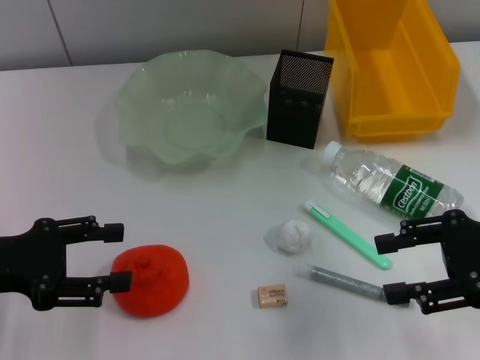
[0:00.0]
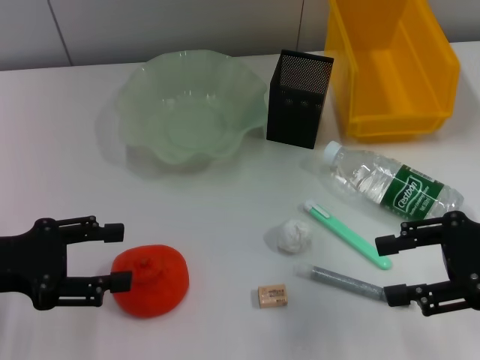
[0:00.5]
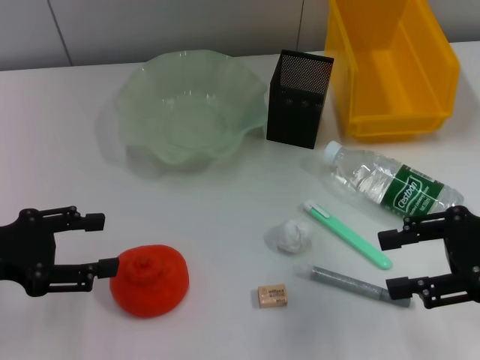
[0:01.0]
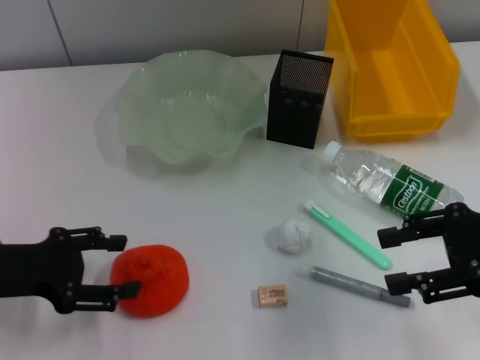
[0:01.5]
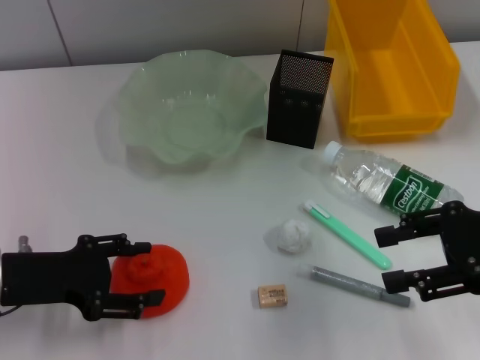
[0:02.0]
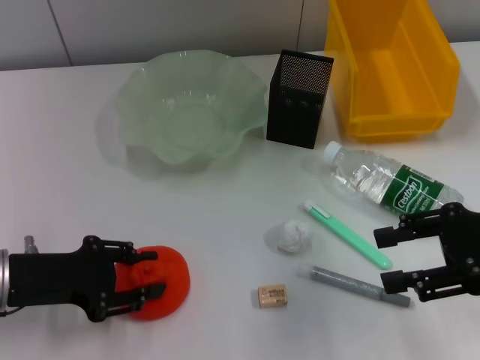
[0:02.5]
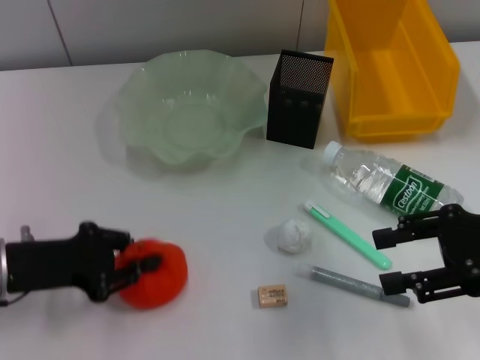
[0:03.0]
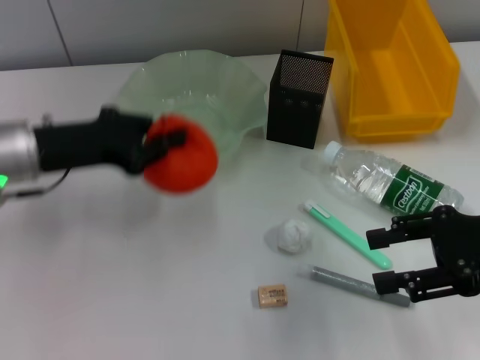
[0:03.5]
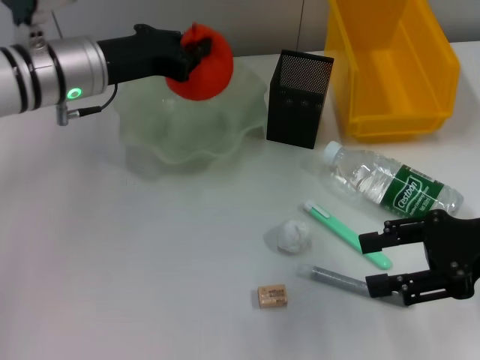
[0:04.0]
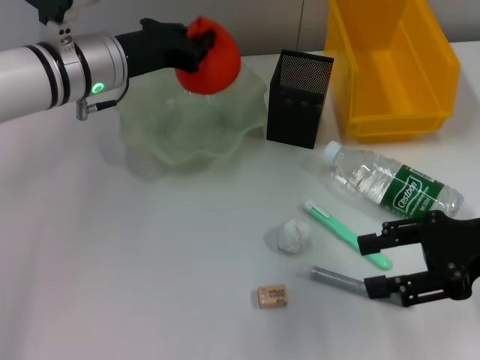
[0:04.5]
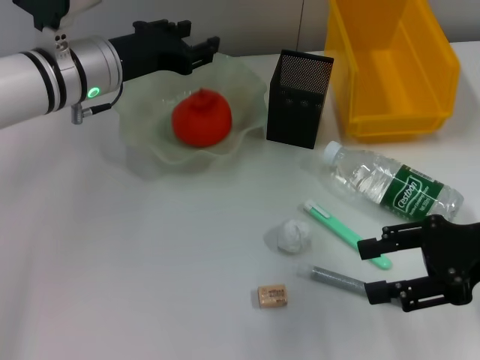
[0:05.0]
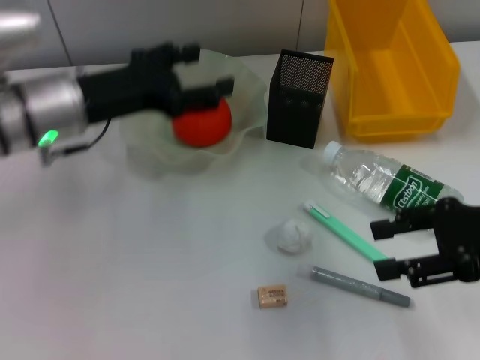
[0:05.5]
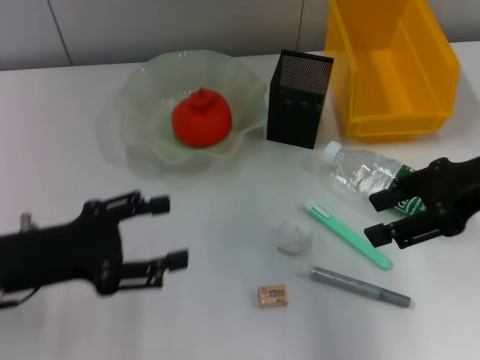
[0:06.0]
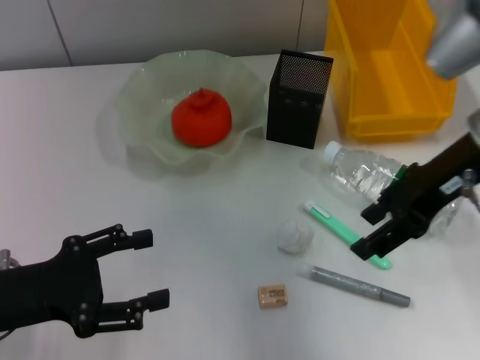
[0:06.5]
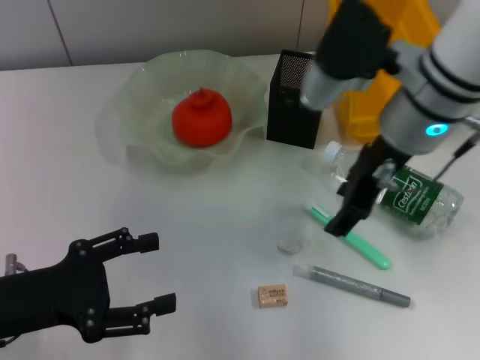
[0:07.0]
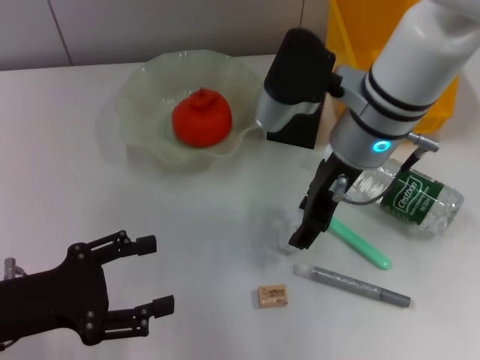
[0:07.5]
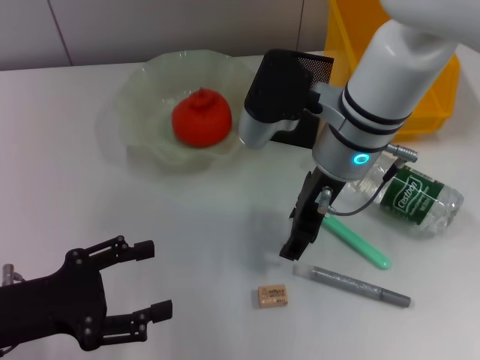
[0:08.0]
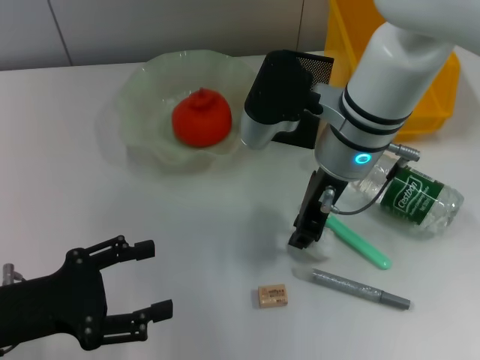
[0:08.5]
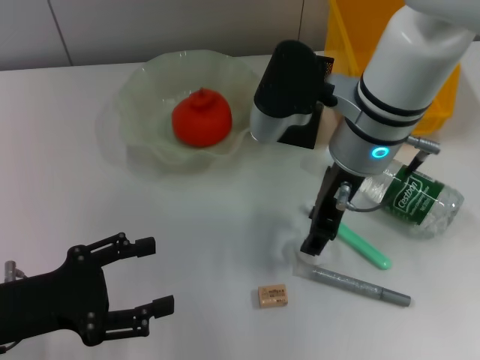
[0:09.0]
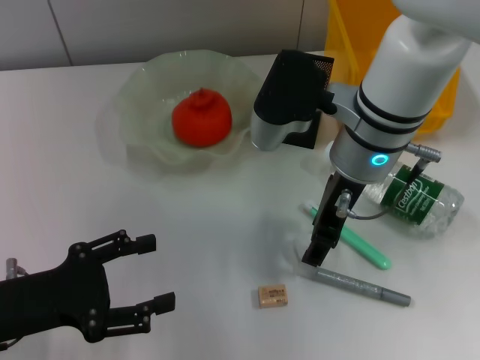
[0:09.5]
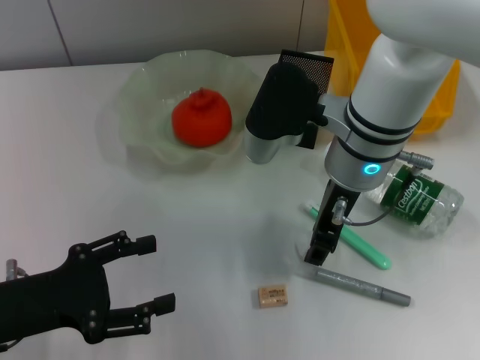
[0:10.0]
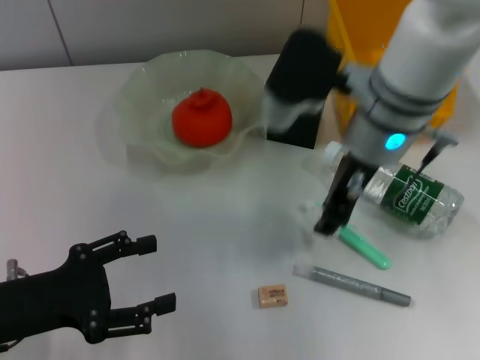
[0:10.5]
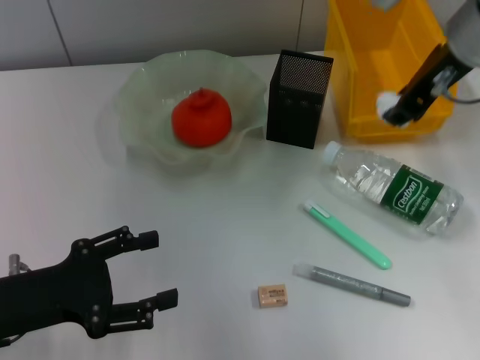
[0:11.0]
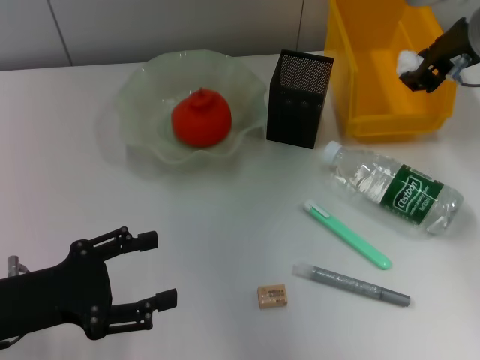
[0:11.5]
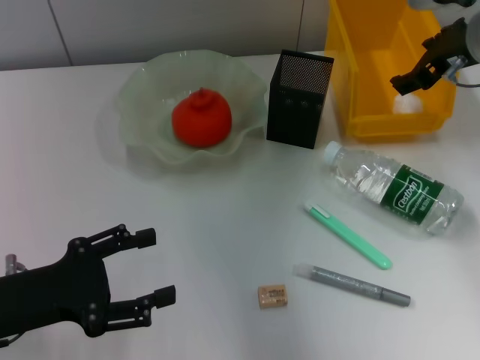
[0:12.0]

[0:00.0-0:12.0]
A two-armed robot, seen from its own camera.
Step, 0.0 to 2.5 s: Grab the orange with the left hand.
Step, 3.0 to 4.5 s: Place the orange into the fruit bowl with the left hand.
Step, 5.0 to 10.0 s: Grab the paper ball with the right hand.
Step, 10.5 to 11.5 s: Place the paper ball into the trash can with the right hand.
0.0 to 2.0 s: There are only small adjustments of the grippers.
2.0 to 4.0 s: The left gripper goes approximately 20 cm forward, to the right and upward, and closes its fingers.
4.0 to 6.0 s: The left gripper heads backward and to the left, covering some 20 cm, and opens. The right gripper shifts roughly 5 cm upward.
6.0 to 8.0 s: The right gripper is displaced to the left and forward by some 20 cm.
8.0 to 10.0 s: The right gripper closes, then opens again.
10.0 to 12.0 s: The right gripper is displaced to the right by approximately 15 cm, and closes and opens again.

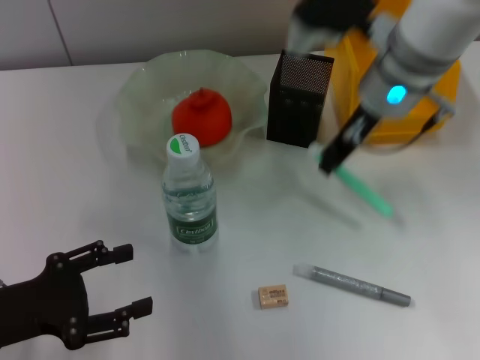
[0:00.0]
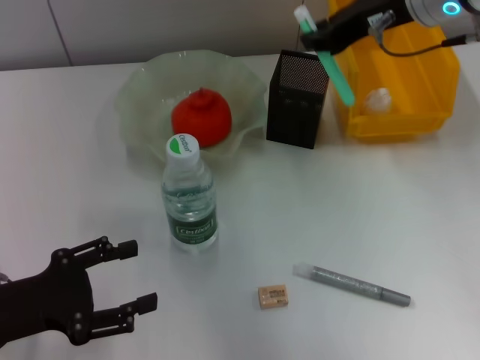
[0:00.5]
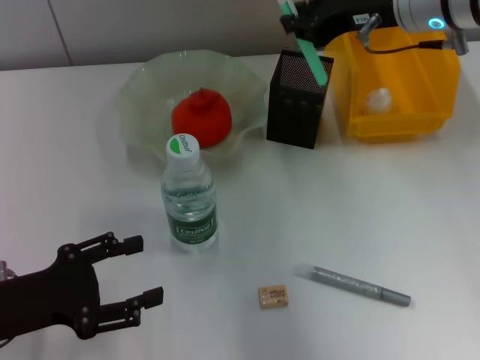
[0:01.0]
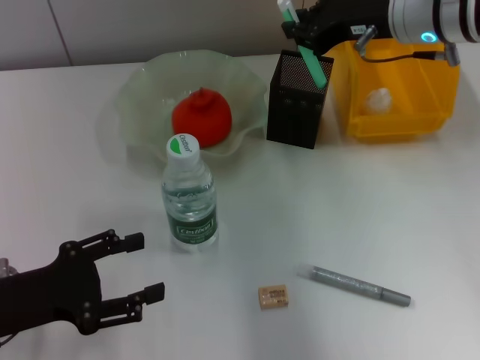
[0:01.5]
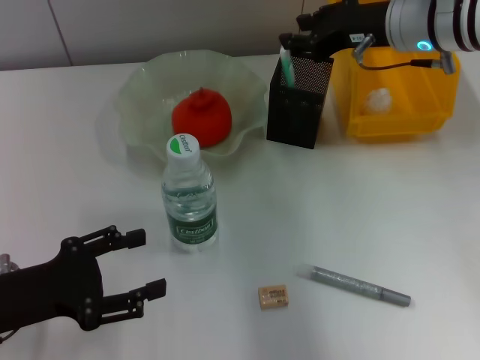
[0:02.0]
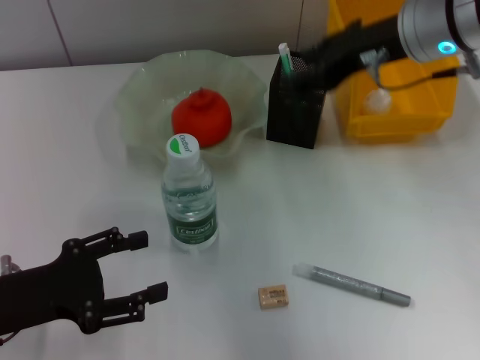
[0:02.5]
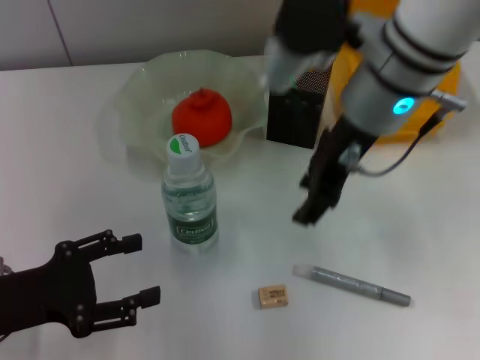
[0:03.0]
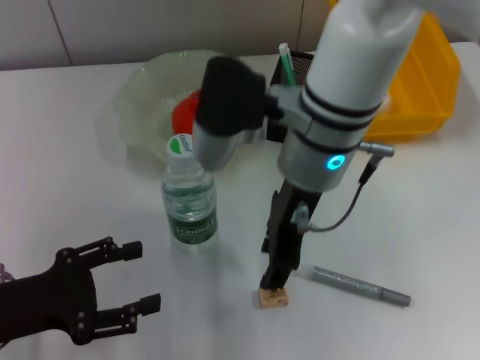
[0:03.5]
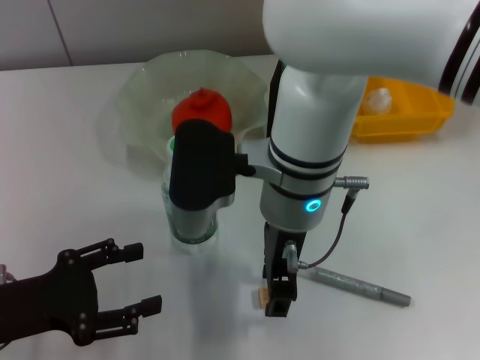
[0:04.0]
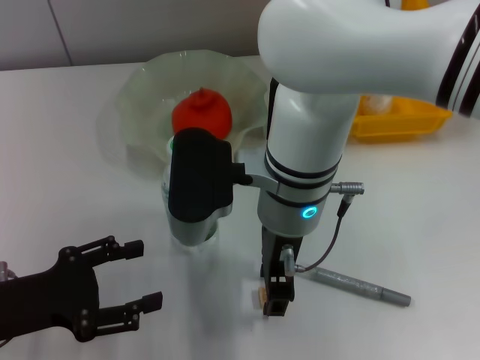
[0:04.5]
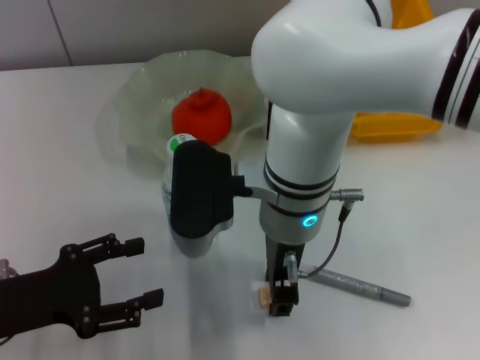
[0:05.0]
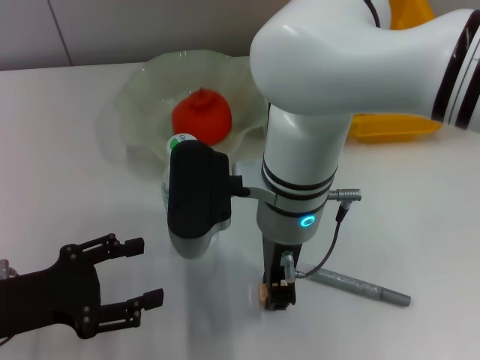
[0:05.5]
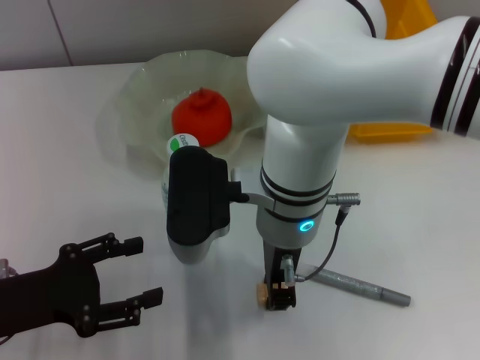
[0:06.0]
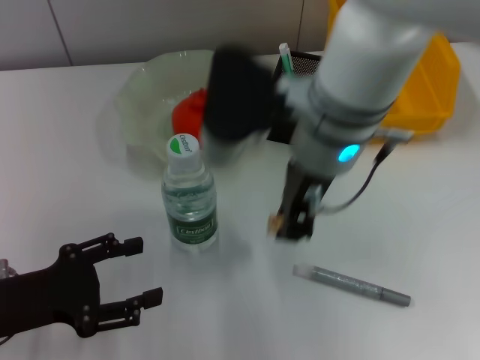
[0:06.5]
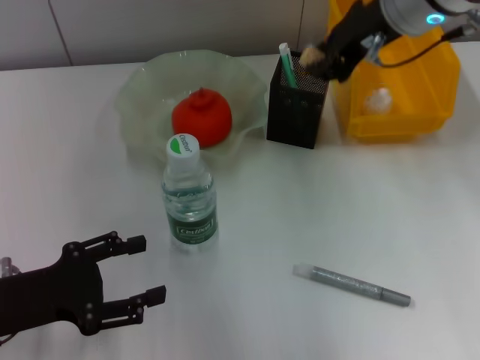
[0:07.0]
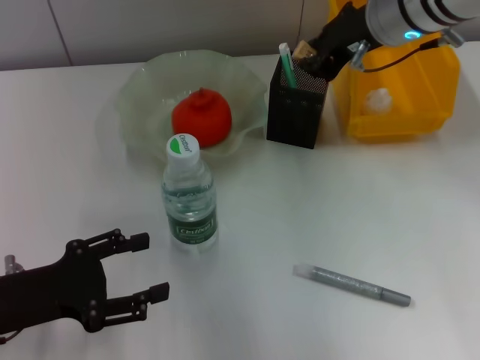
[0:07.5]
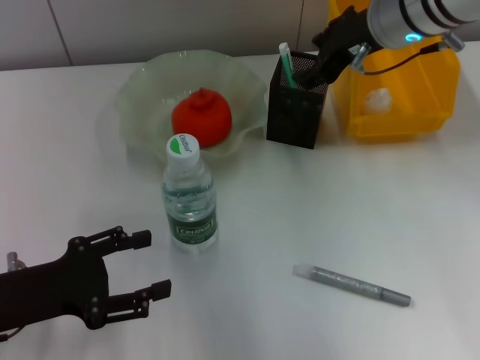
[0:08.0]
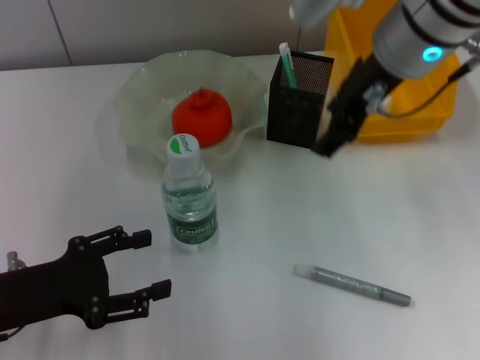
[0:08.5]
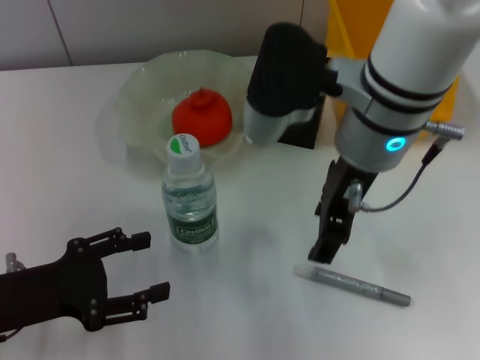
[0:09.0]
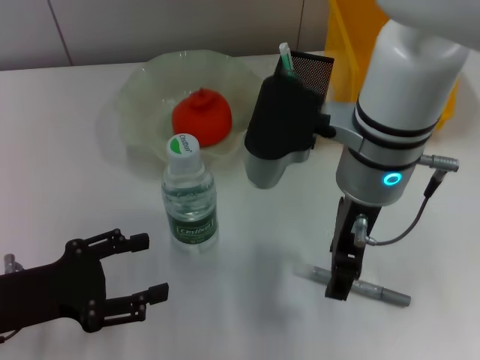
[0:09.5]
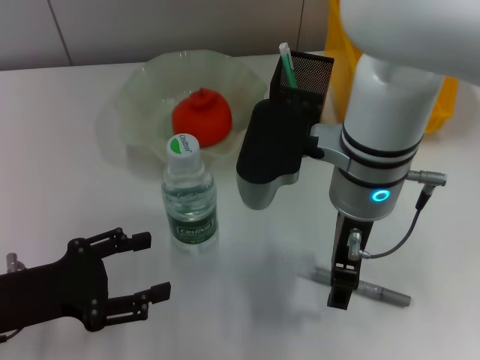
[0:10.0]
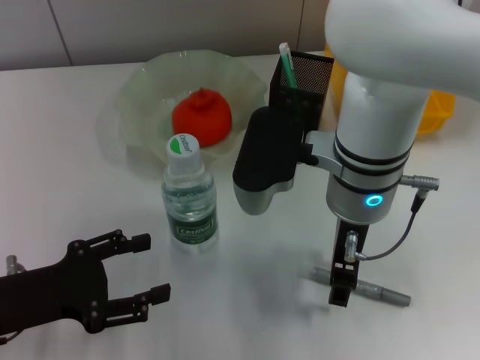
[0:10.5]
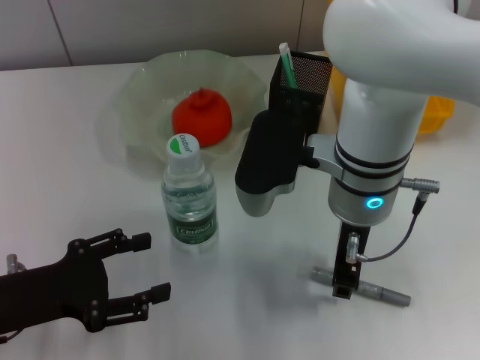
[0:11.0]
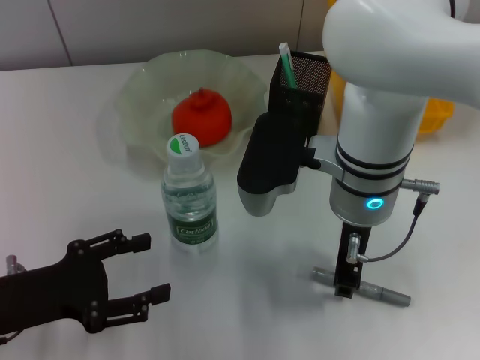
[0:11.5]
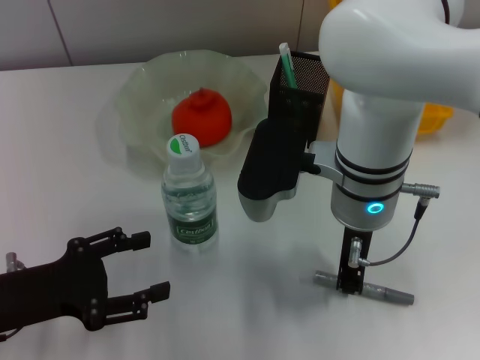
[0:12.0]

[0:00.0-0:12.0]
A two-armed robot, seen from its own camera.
Step, 0.0 to 2.0 s: Place the blue utility knife into the pen holder with the right hand.
Step, 2.5 to 6.0 s: Grab the eraser with the right hand.
Step, 6.5 to 7.5 s: Put the eraser into the pen holder with the right hand.
0.0 to 2.0 s: The right gripper shifts by some 5 cm.
2.0 to 4.0 s: The right gripper goes approximately 20 cm to the left and backward, and opens up.
4.0 to 6.0 s: The right gripper closes.
6.0 to 8.0 s: The right gripper goes roughly 20 cm to the right, forward and upward.
8.0 to 10.0 s: The right gripper heads backward, to the left and downward, covering some 15 cm, and opens up.
10.0 to 12.0 s: The right gripper closes its fingers.

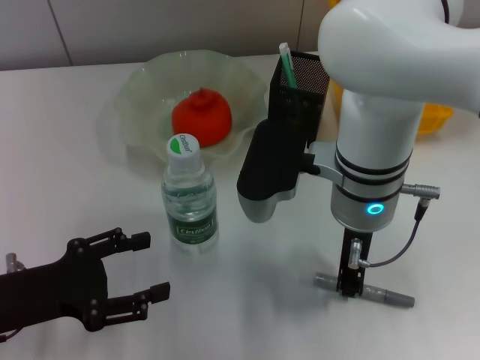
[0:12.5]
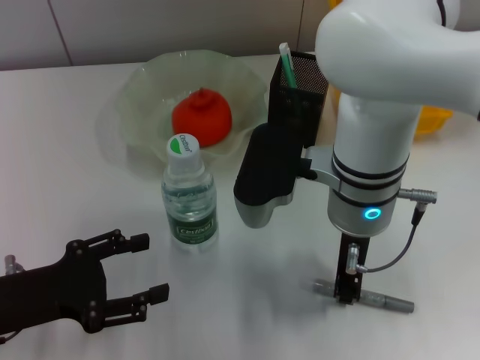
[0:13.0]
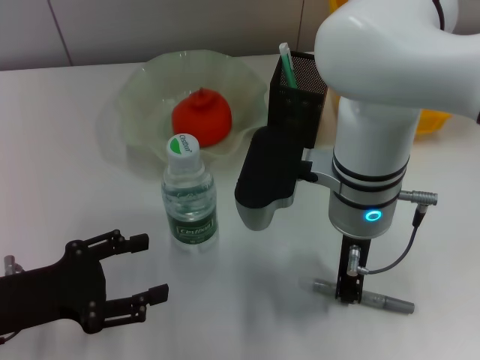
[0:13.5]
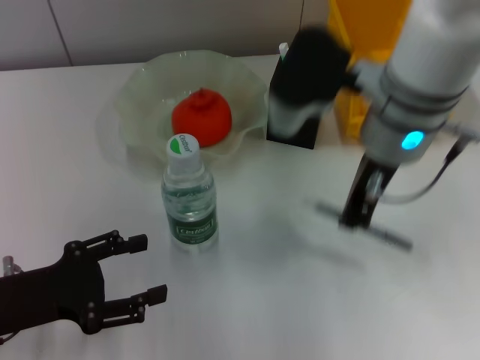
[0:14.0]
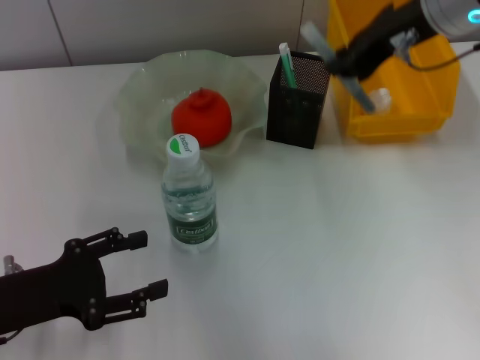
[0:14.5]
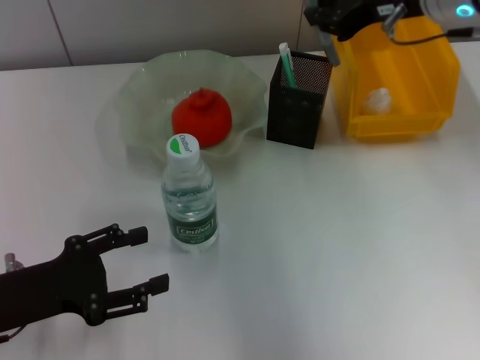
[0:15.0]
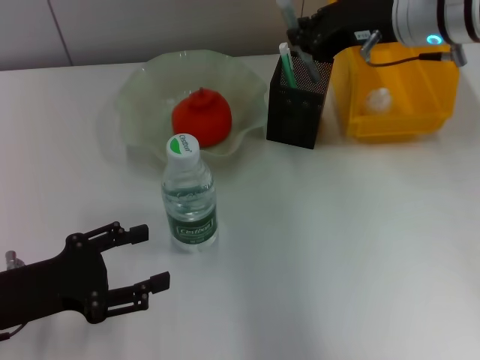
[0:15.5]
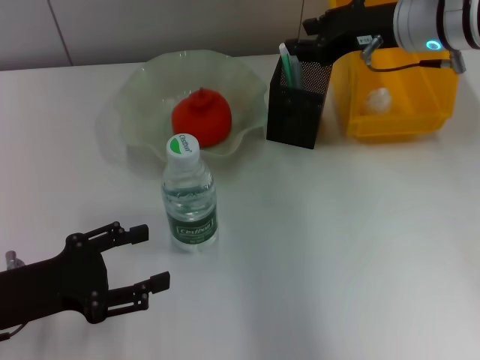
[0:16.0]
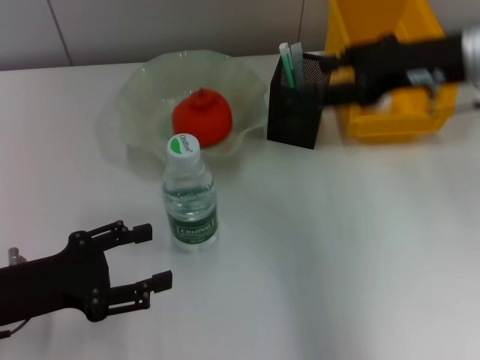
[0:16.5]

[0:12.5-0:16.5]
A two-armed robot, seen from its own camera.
Step, 14.0 to 15.5 s: Place the gray glue into the pen holder with the right hand.
12.5 to 14.5 s: The right gripper shifts some 15 cm upward, to the right and forward.
14.5 to 16.5 s: The right gripper moves downward and to the right, about 10 cm, and opens up.
